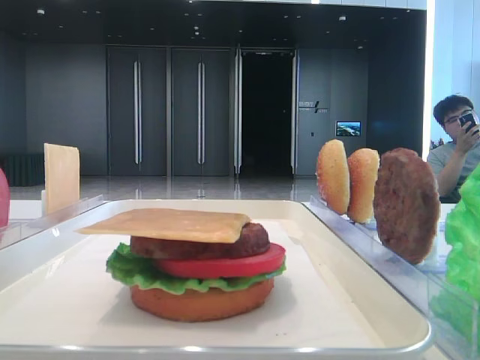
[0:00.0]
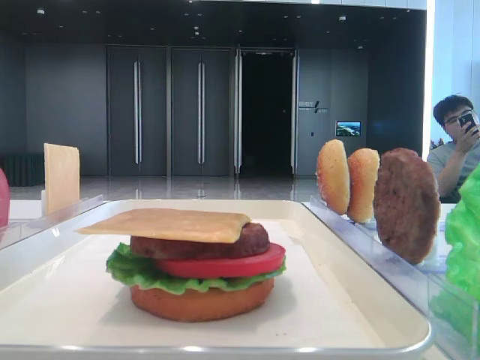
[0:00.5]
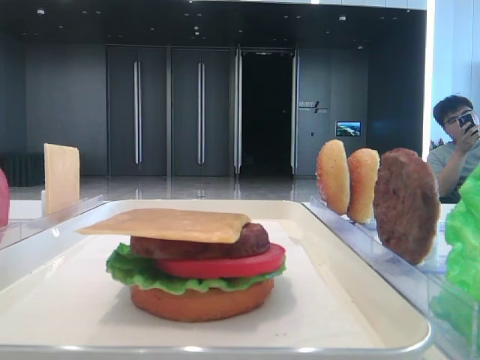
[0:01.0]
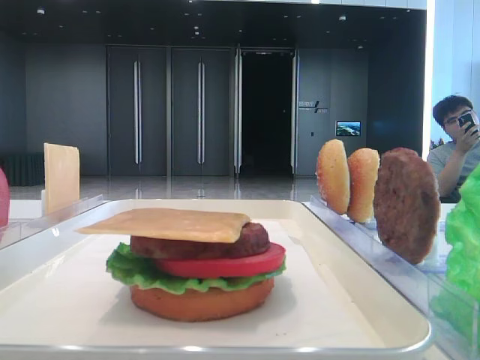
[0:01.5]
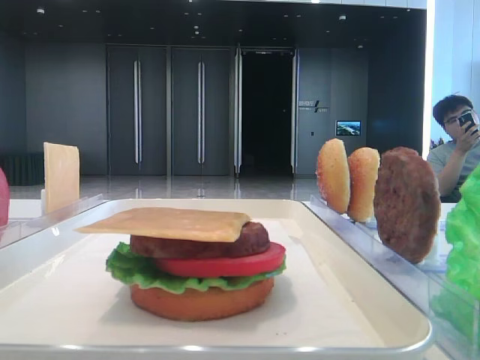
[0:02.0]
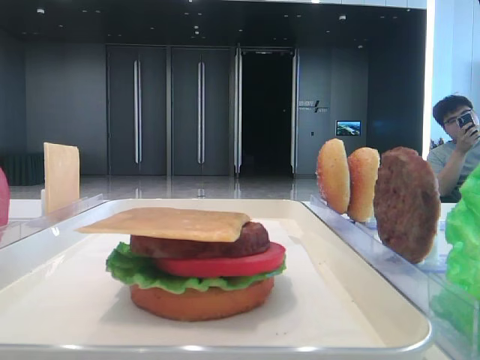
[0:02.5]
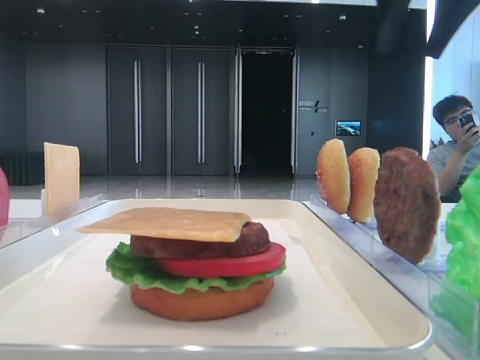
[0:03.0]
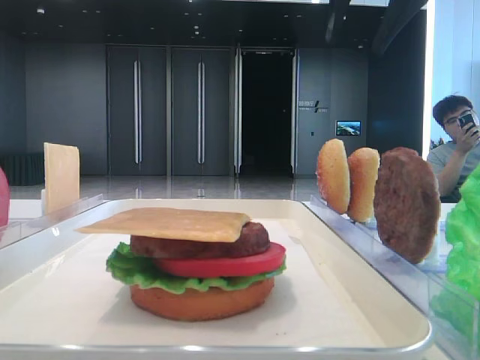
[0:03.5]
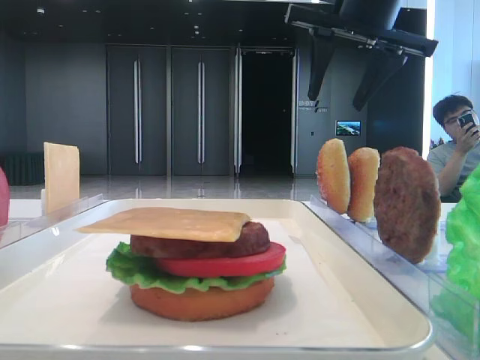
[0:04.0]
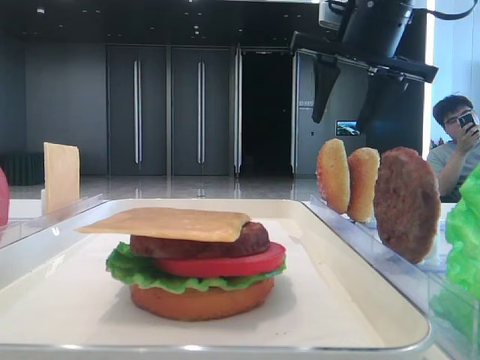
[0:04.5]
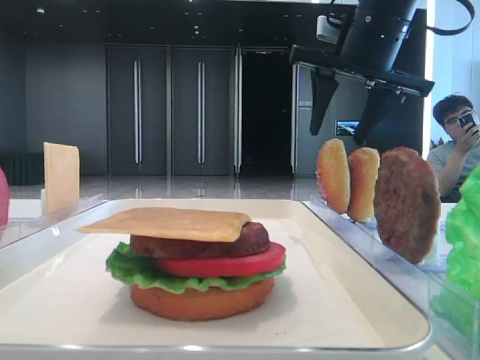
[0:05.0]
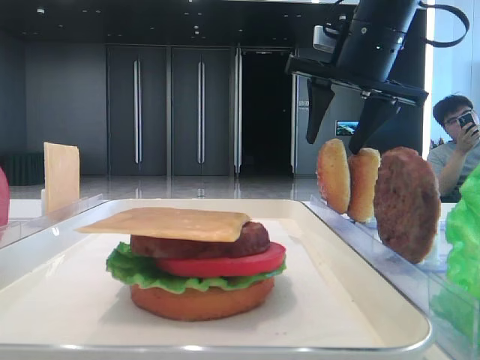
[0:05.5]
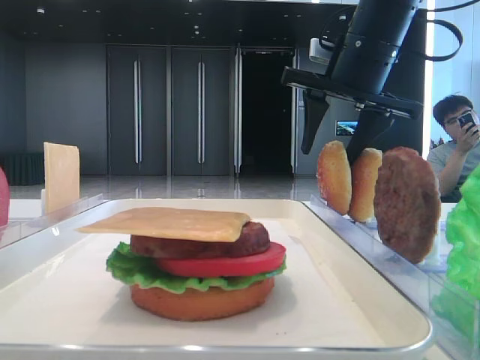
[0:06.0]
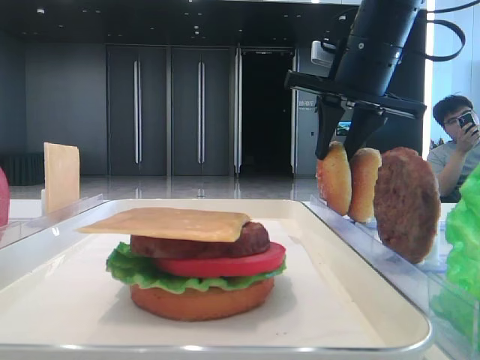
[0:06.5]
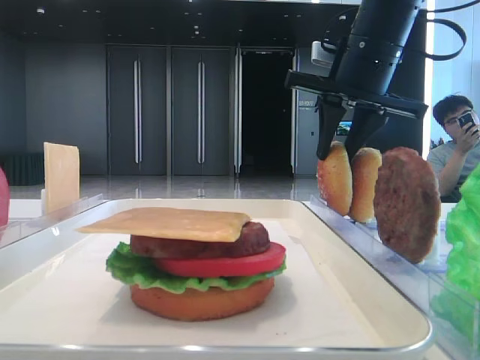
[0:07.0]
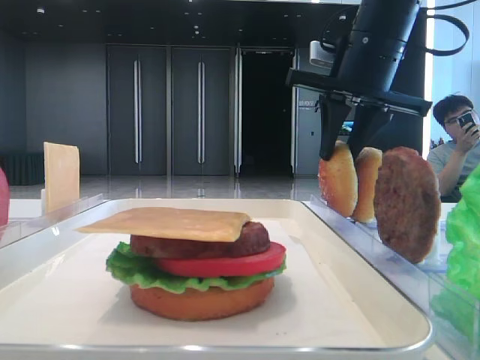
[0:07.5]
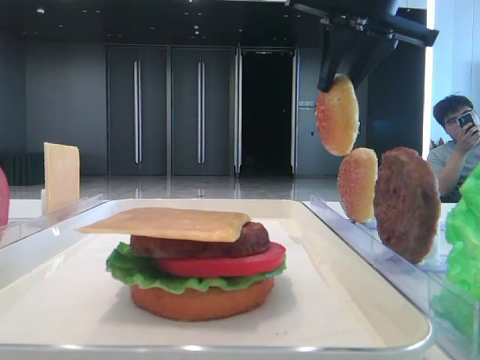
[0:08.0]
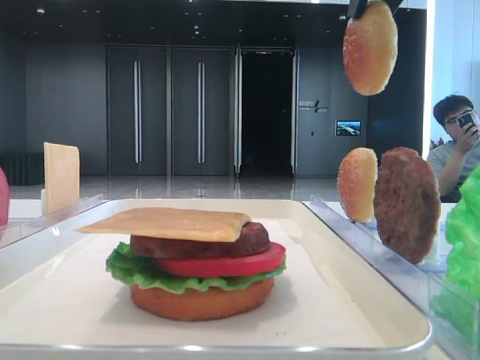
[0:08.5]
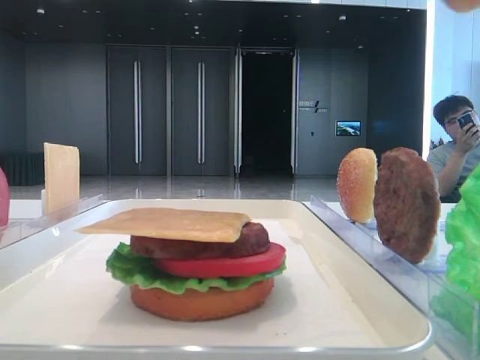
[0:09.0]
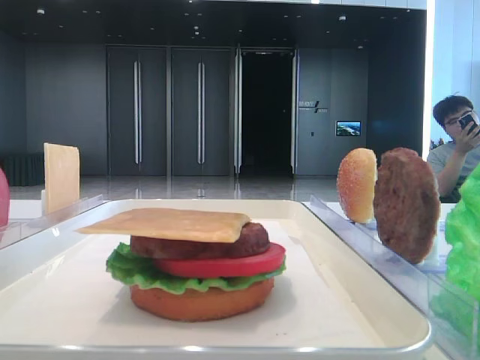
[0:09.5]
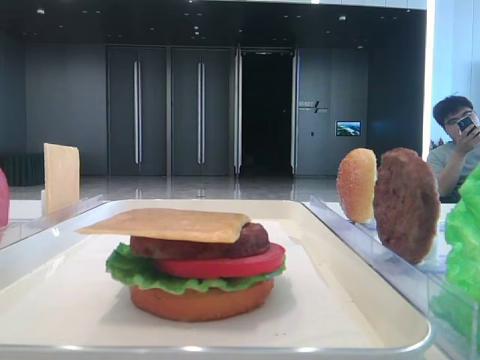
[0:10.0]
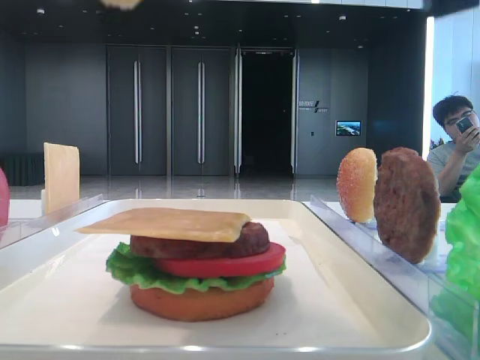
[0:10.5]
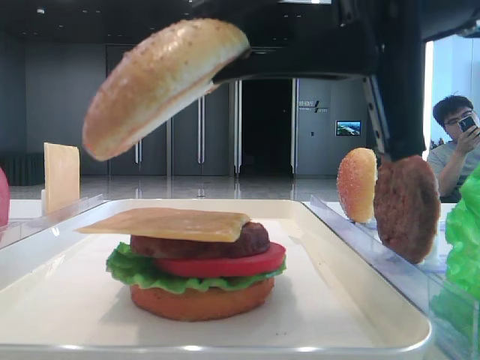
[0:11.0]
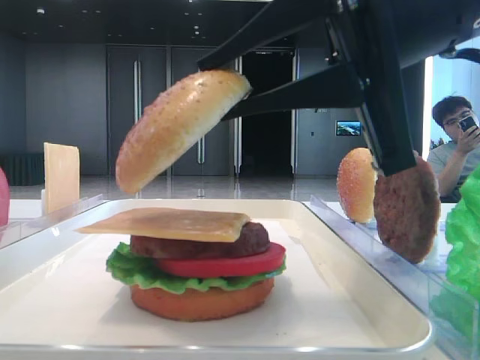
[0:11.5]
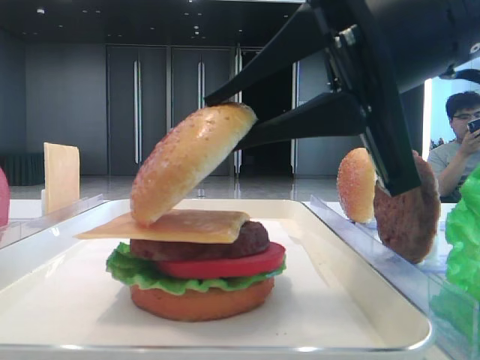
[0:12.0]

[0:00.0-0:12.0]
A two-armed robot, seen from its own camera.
Step, 0:00.0 to 0:06.0: Pick up the top bread slice with the right hand.
0:02.0 to 0:04.0: The right gripper travels to the left, forward and downward by about 20 cm, and opens.
0:04.0 to 0:06.0: The right gripper is displaced downward by approximately 5 cm.
0:06.0 to 0:08.0: The left gripper closes. The right gripper goes roughly 5 cm upward, and closes up.
0:08.0 to 0:10.0: The right gripper heads backward, covering some 30 cm.
0:10.0 to 0:12.0: The right gripper travels downward, forward and to the left by roughly 25 cm.

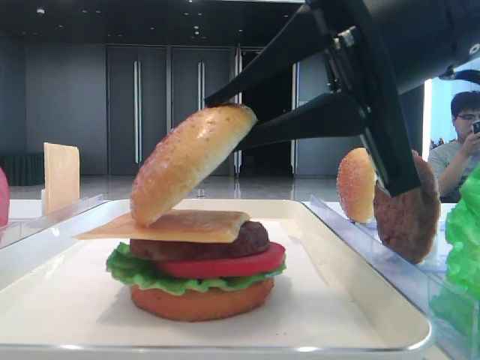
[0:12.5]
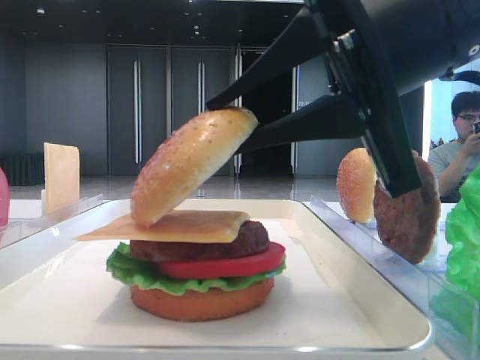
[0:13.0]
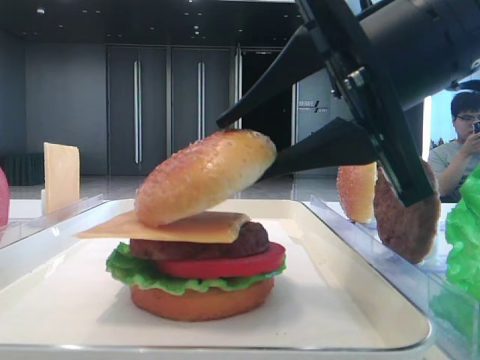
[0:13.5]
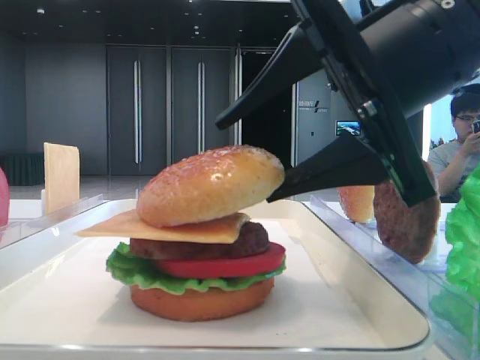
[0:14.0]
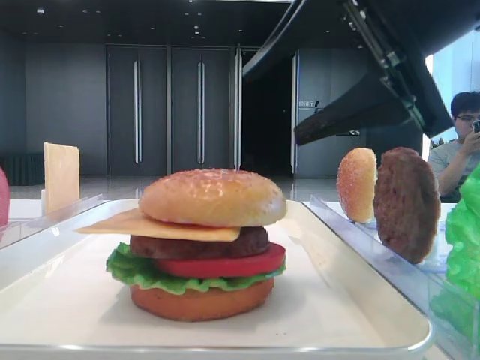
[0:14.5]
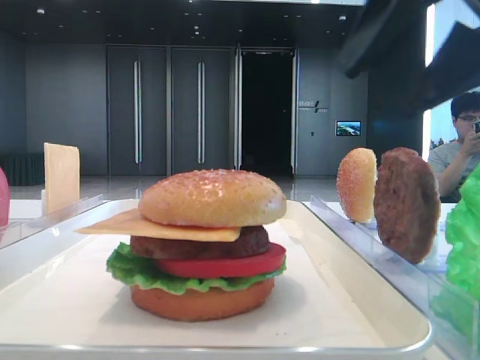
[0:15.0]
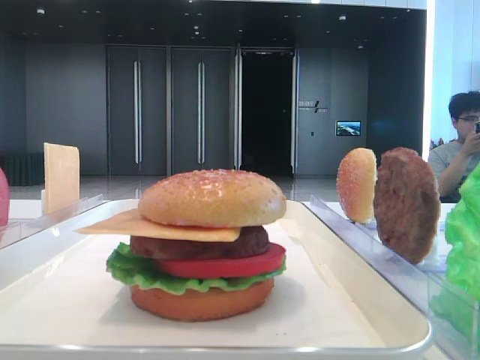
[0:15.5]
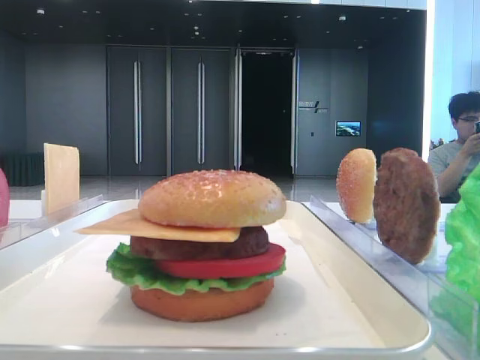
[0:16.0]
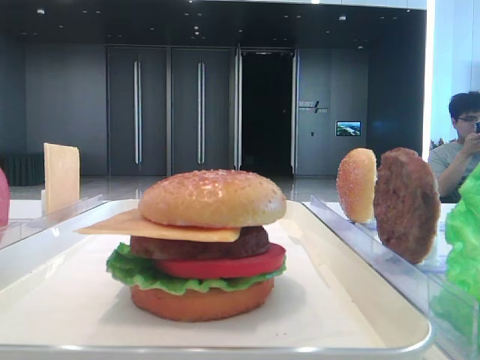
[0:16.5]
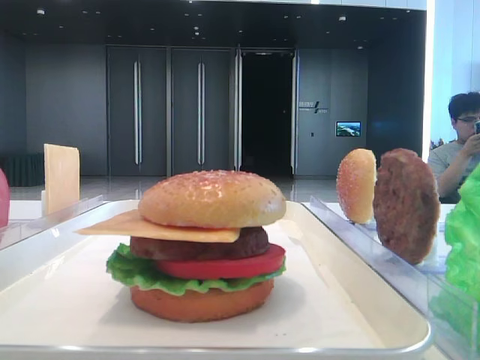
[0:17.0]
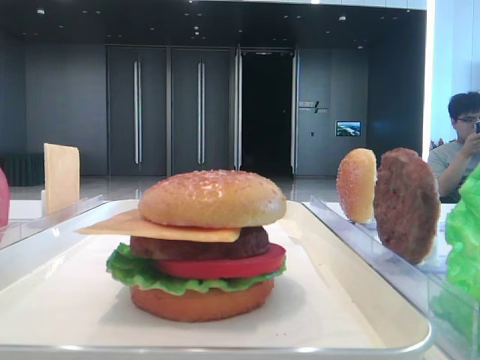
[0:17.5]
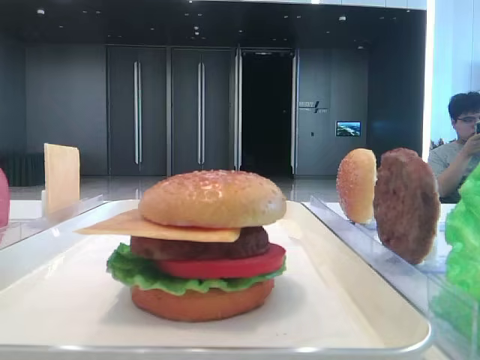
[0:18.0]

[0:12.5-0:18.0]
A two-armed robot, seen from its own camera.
0:12.5 to 0:14.5: The right gripper opens.
0:14.5 to 0:16.0: The right gripper shifts some 20 cm to the right, backward and upward, and closes up.

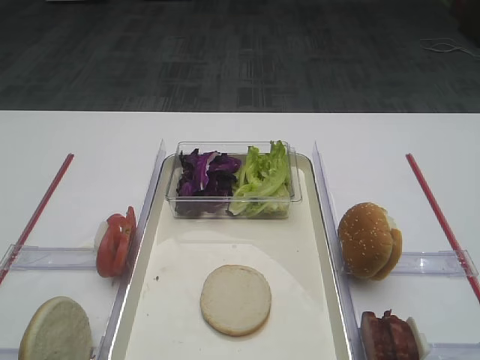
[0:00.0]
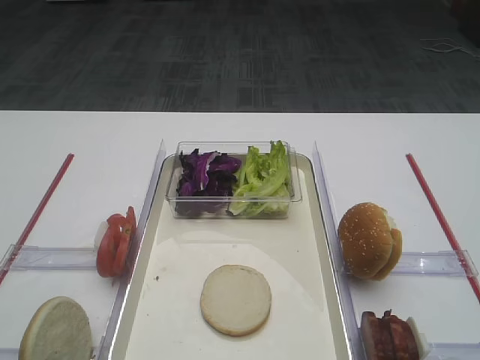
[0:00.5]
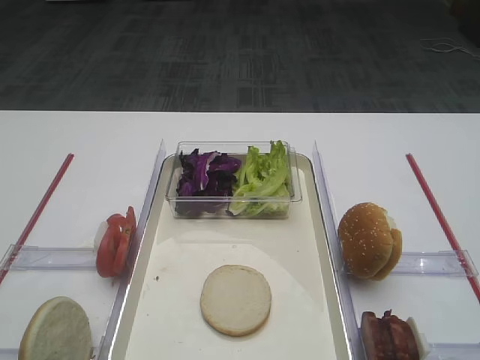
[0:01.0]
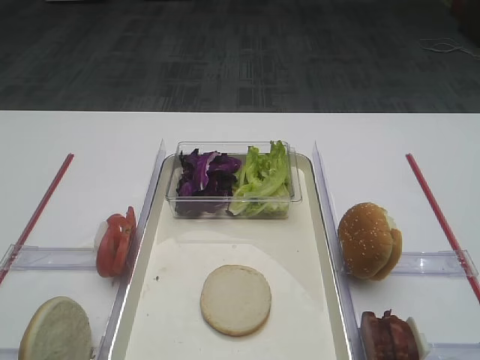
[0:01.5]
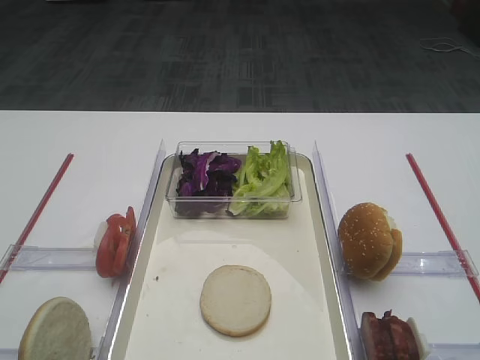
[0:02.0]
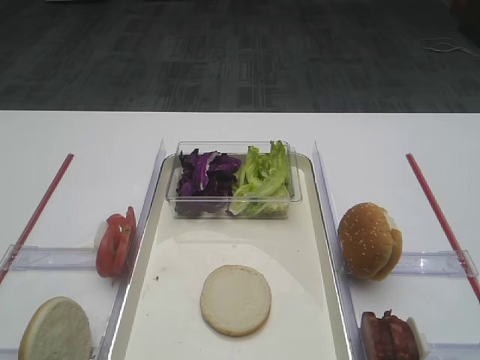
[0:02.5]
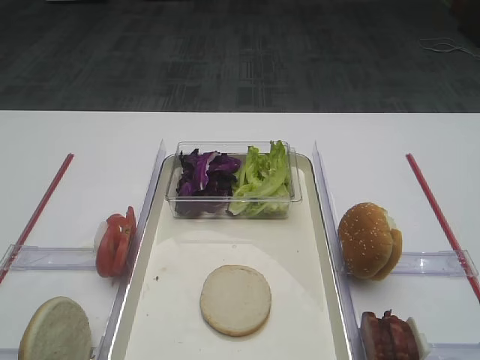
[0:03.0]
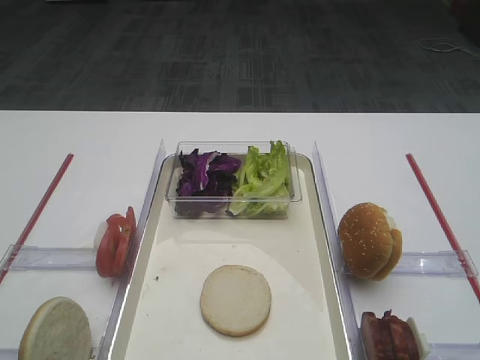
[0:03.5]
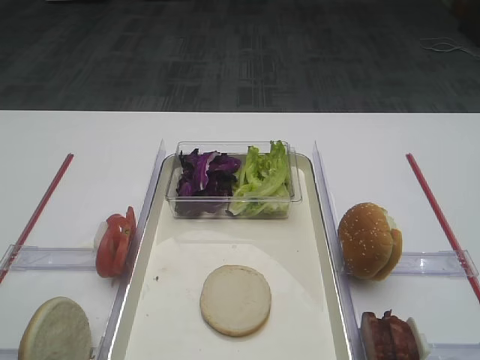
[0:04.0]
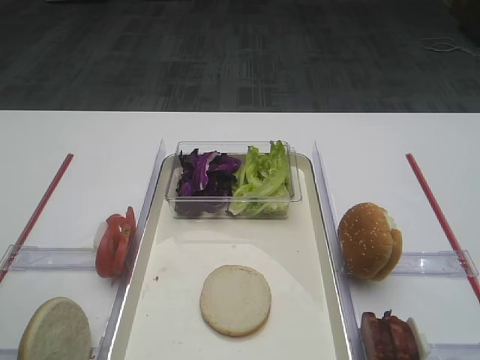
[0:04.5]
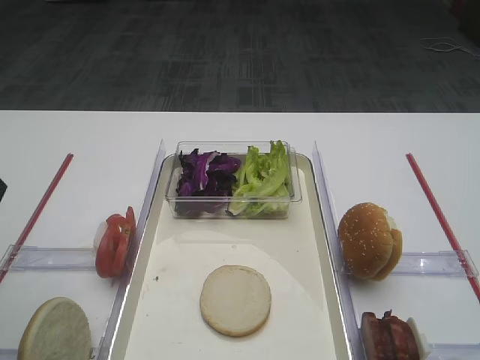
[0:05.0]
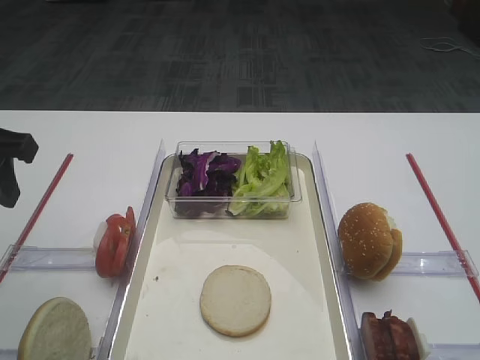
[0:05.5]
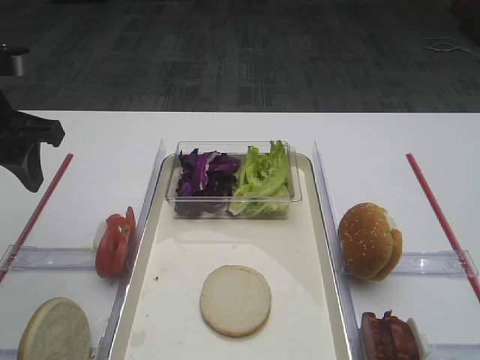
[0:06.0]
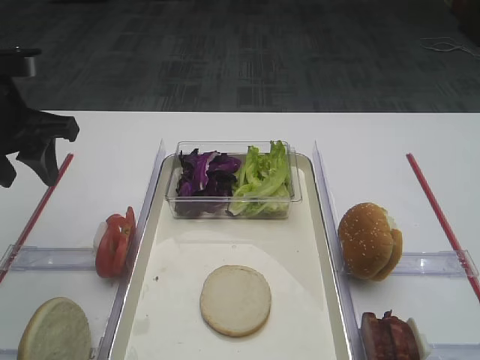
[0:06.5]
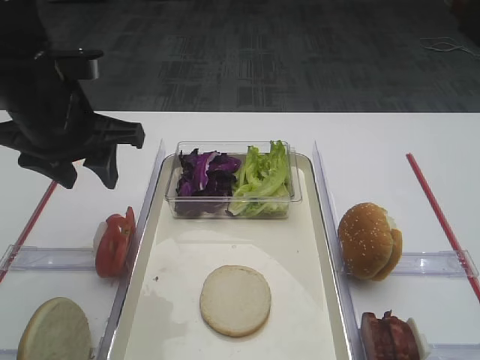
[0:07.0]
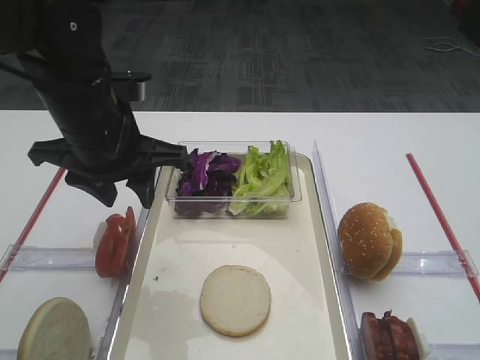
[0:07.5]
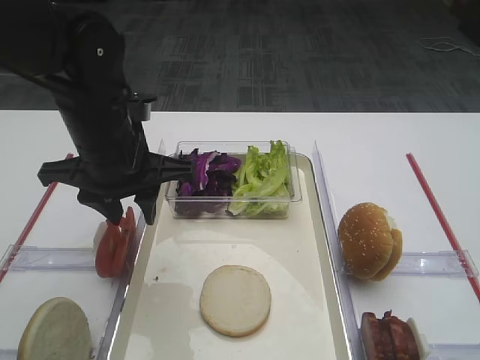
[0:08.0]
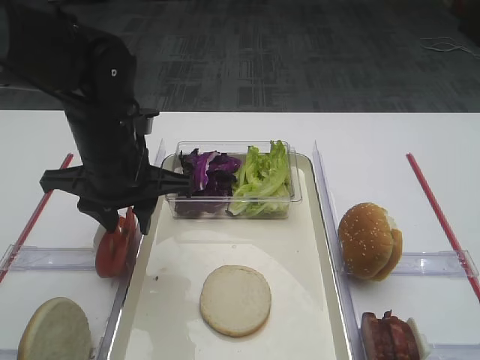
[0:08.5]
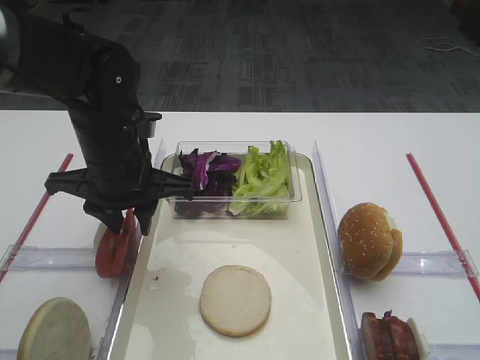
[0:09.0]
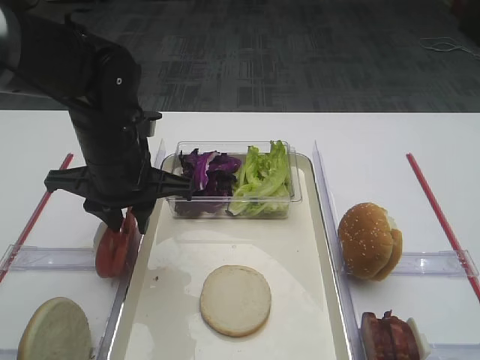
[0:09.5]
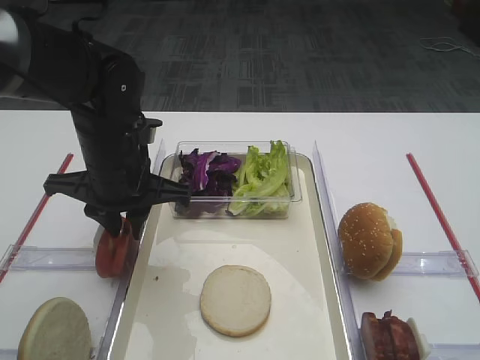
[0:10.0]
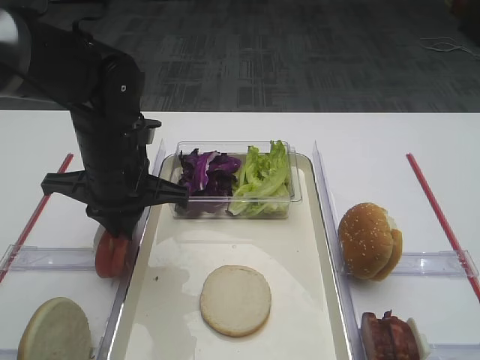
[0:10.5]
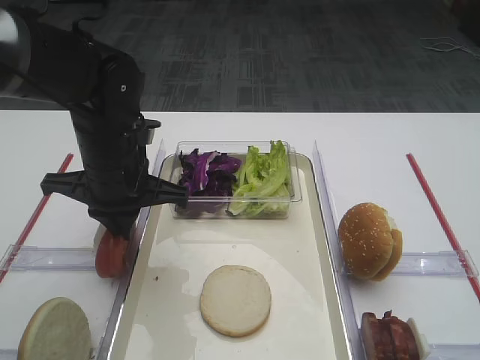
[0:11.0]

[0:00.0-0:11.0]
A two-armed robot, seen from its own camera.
0:03.5 to 0:05.5: The left gripper goes approximately 20 cm forward.
0:05.5 to 0:07.5: The left gripper is displaced to the right by about 15 cm.
0:07.5 to 0:09.0: The left gripper shifts by some 5 cm.
0:09.0 to 0:11.0: The left gripper closes up.
